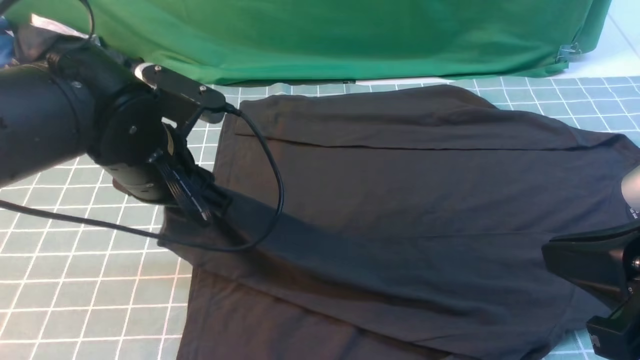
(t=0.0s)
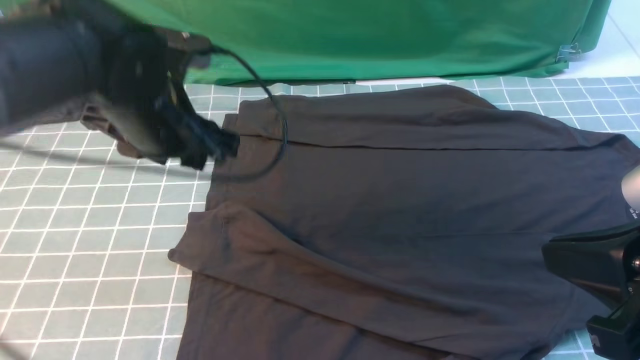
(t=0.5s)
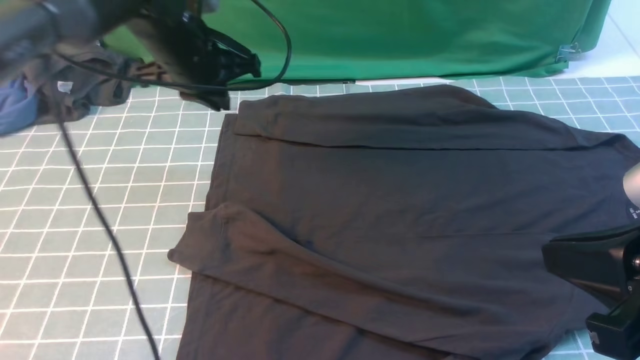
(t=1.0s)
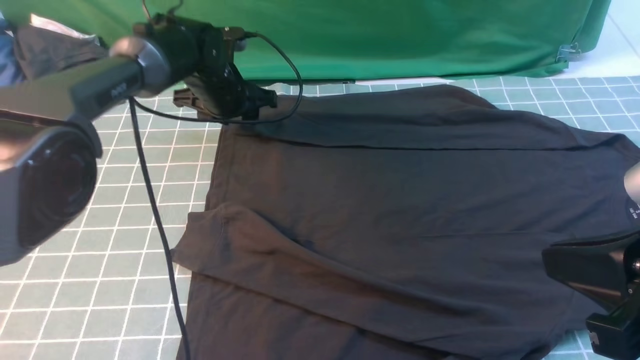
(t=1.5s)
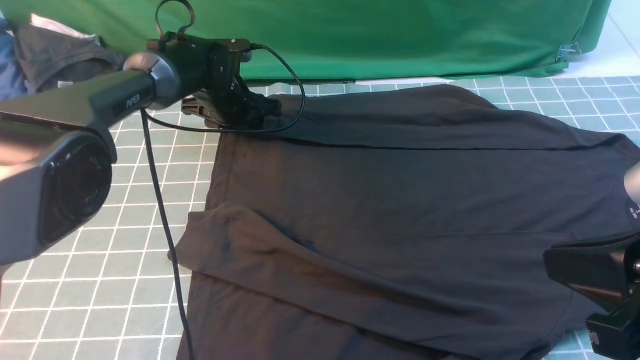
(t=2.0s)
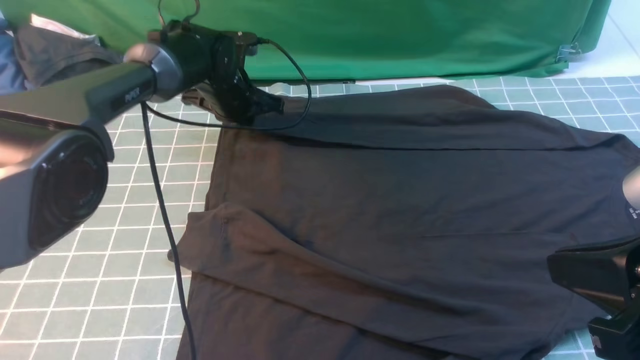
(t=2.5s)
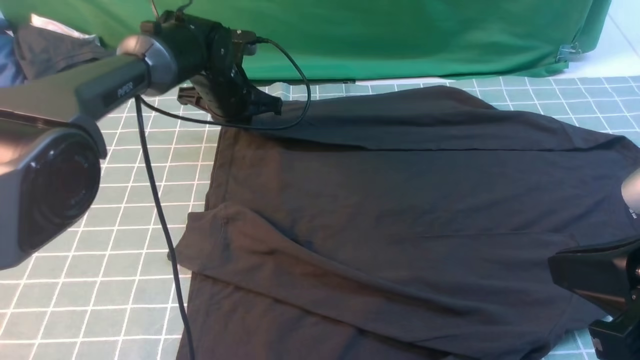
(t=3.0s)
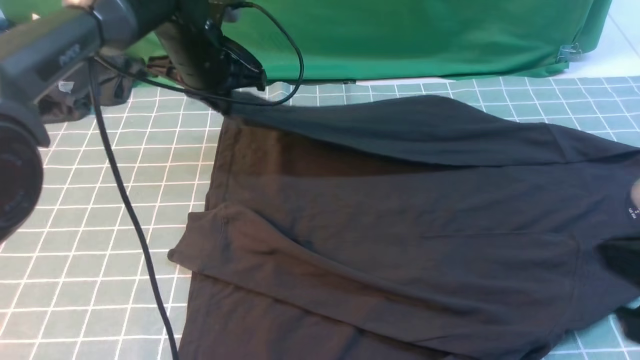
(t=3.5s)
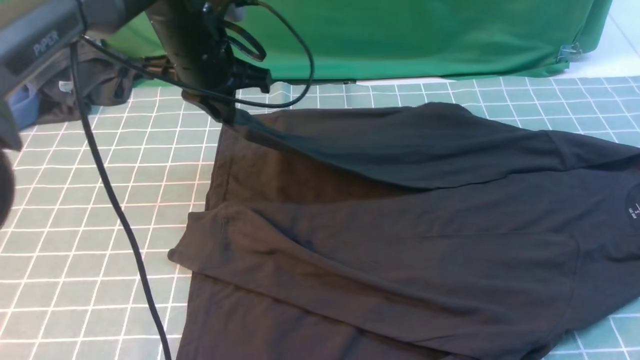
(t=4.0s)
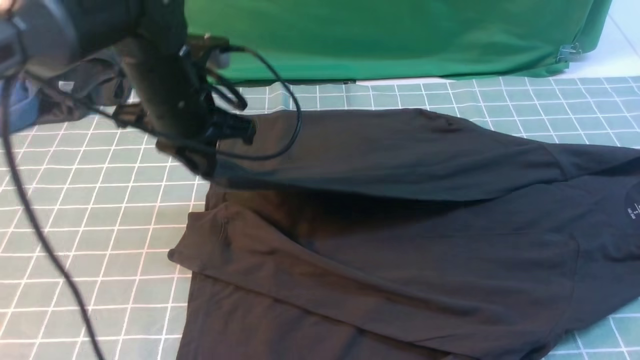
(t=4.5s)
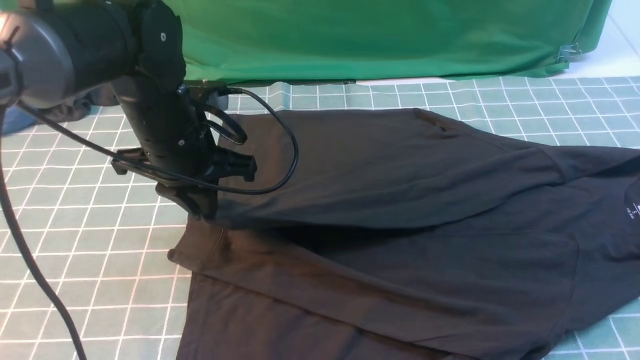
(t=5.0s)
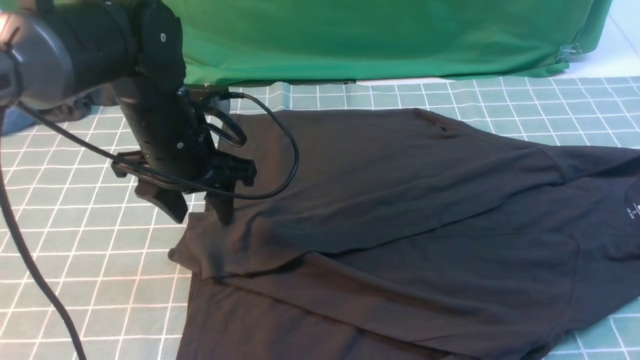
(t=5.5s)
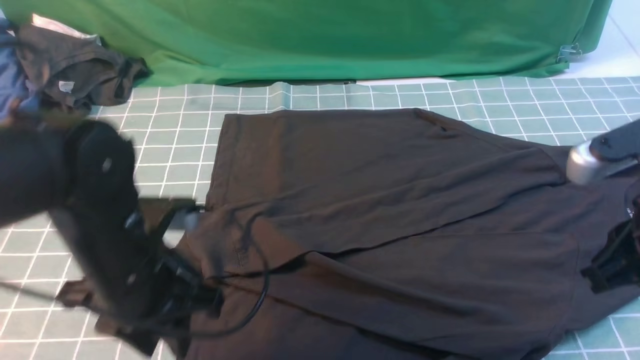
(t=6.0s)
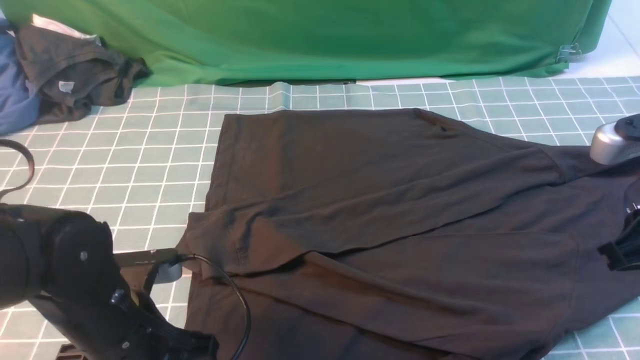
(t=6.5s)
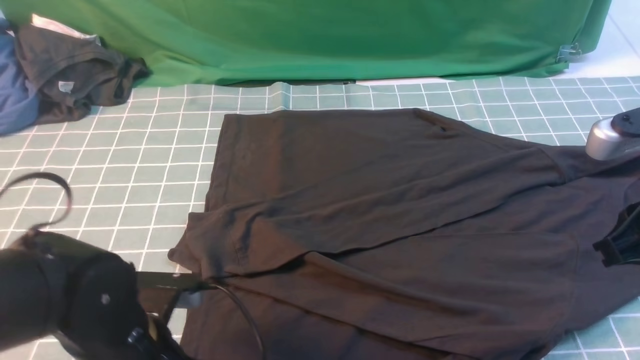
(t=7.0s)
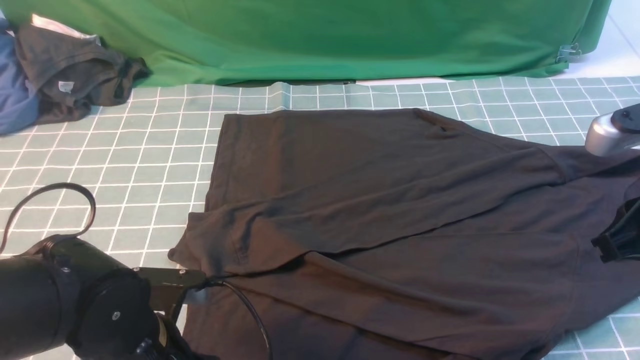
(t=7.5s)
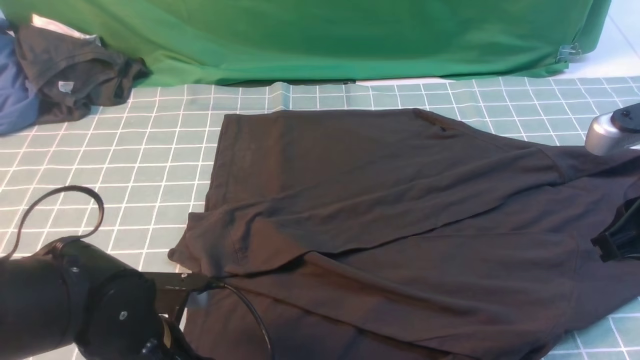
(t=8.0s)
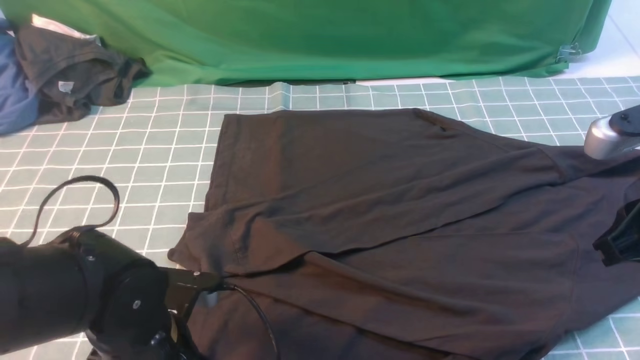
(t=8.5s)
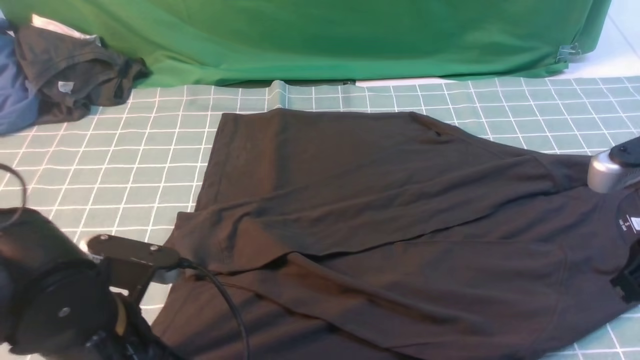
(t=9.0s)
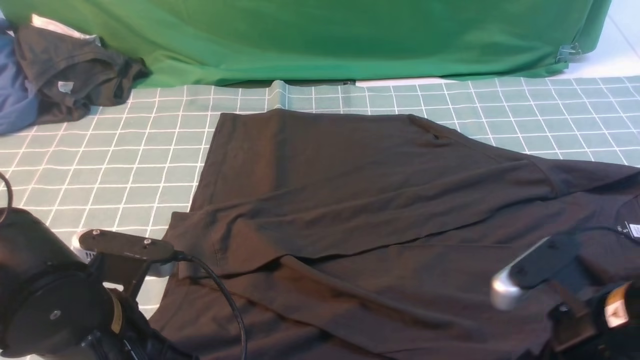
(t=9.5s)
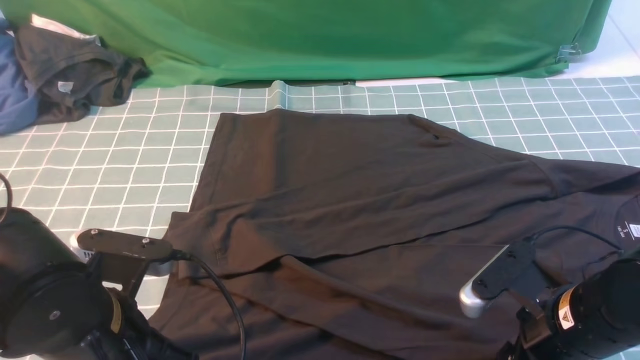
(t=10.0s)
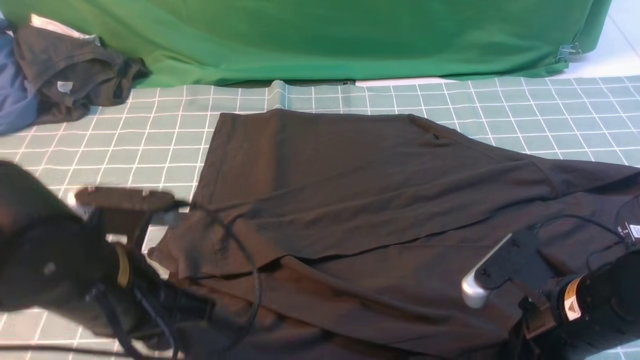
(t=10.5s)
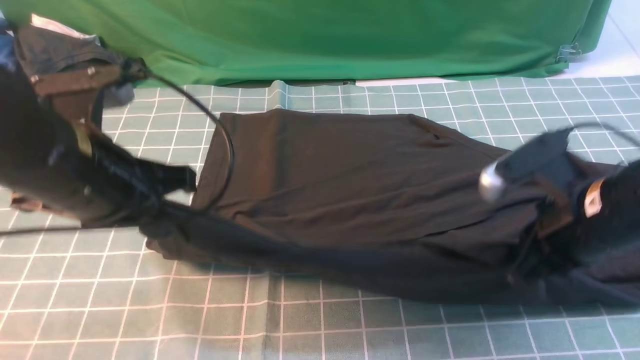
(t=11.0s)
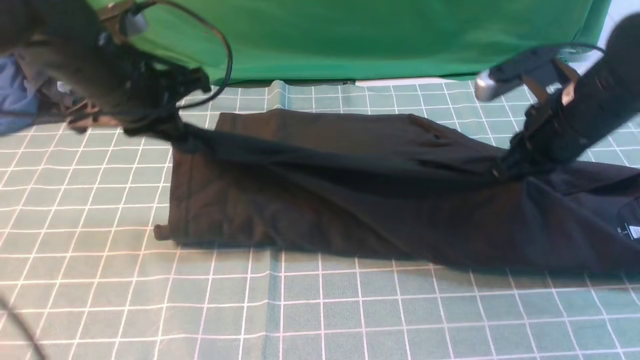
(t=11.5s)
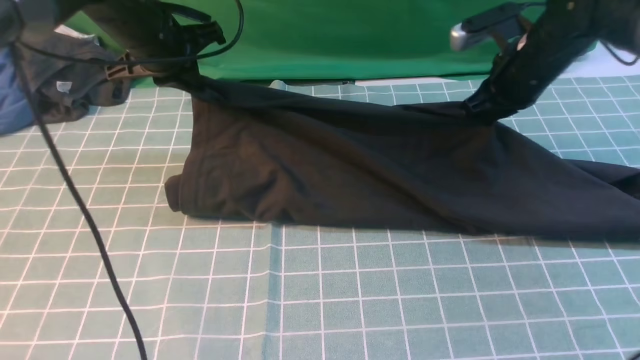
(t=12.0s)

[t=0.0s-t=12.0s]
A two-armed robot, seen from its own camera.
Step, t=1.0s to t=2.5s: use the left arm to clamp the cuff farthest from it.
Step, t=3.0s to t=5.5s: use the left arm to drag and drop the cuff onto the cuff closest to the left arm.
Step, t=6.0s to t=10.0s: use both arms simultaneously to clamp the lower edge of the clothing fabric.
t=0.0s to t=2.0s: The left gripper heads forward and downward, covering some 25 cm.
t=2.0s to t=4.0s: The right gripper travels to the right by some 5 cm, while the left gripper shifts some 15 cm upward and backward, and closes up.
t=4.0s to t=6.0s: The right gripper is displaced forward by some 5 cm. Meanwhile the left gripper travels backward by some 20 cm, and opens.
t=6.0s to t=8.0s: The left gripper goes roughly 10 cm backward and downward.
t=8.0s to t=10.0s: The right gripper moves downward and to the left, about 15 cm, and opens, while the left gripper moves upward, approximately 5 cm, and closes its fingers.
t=10.0s to t=12.0s: The two grippers go roughly 30 cm forward. The right gripper closes up.

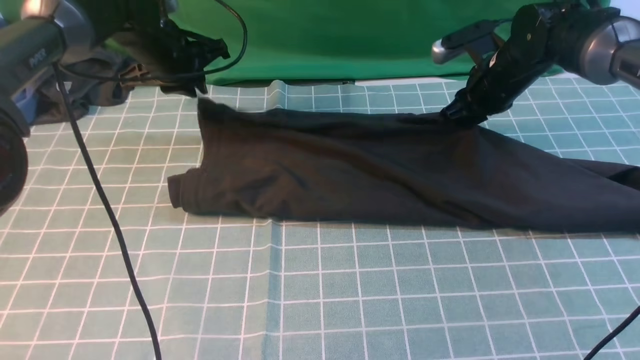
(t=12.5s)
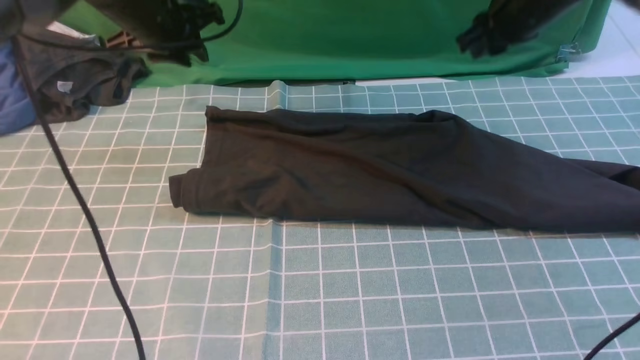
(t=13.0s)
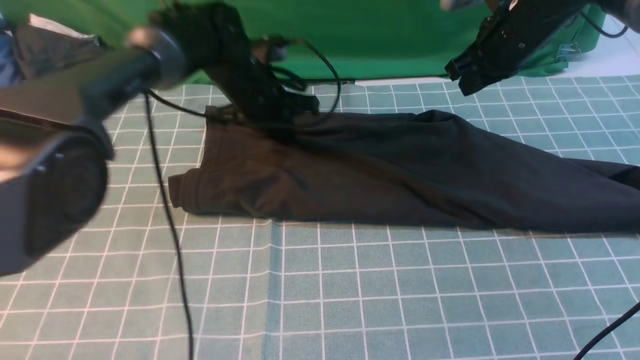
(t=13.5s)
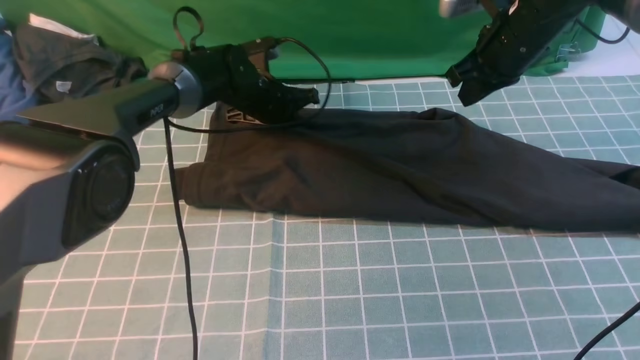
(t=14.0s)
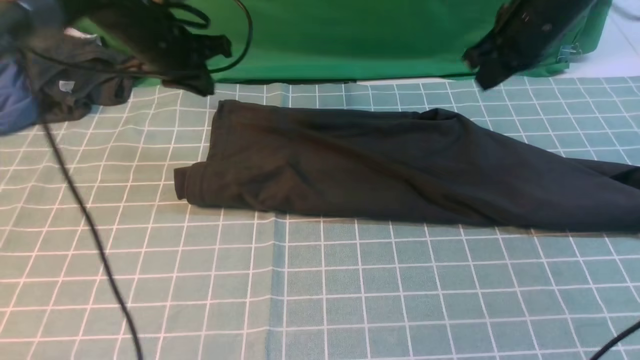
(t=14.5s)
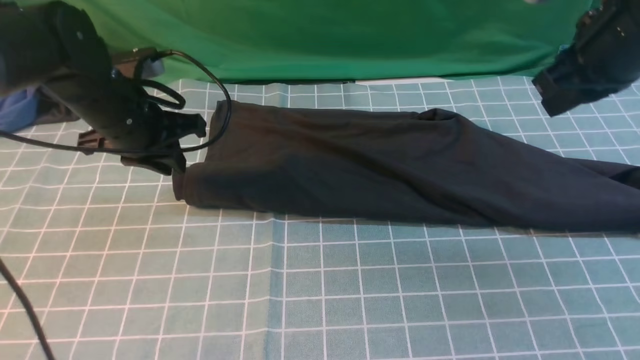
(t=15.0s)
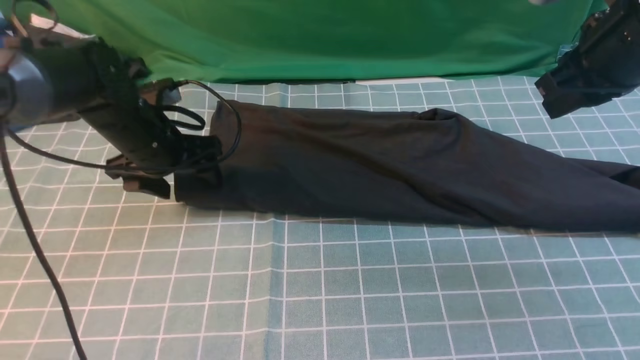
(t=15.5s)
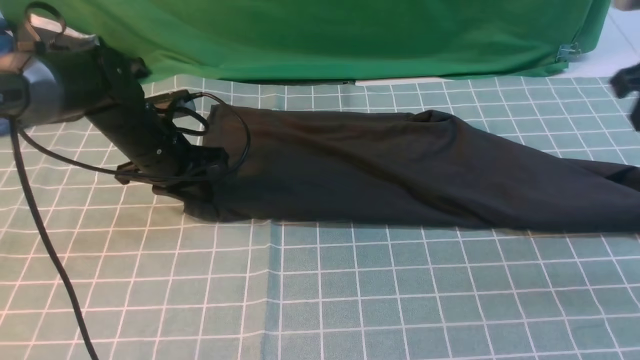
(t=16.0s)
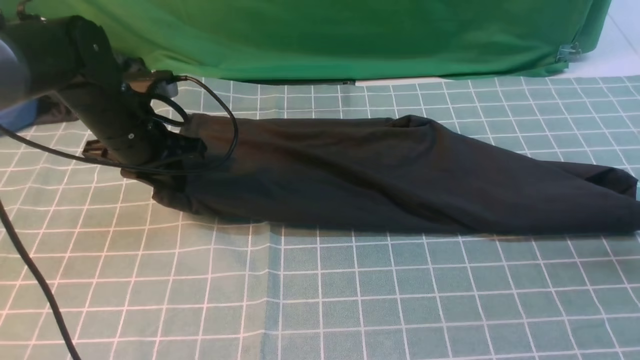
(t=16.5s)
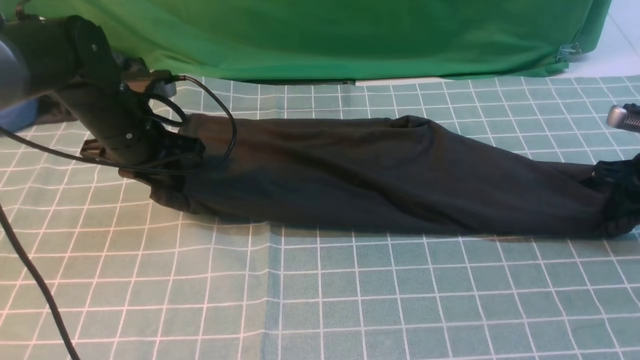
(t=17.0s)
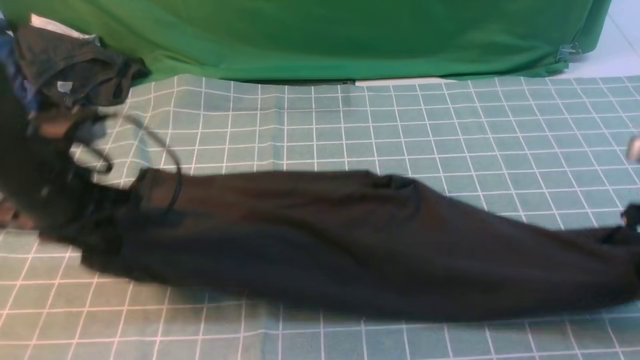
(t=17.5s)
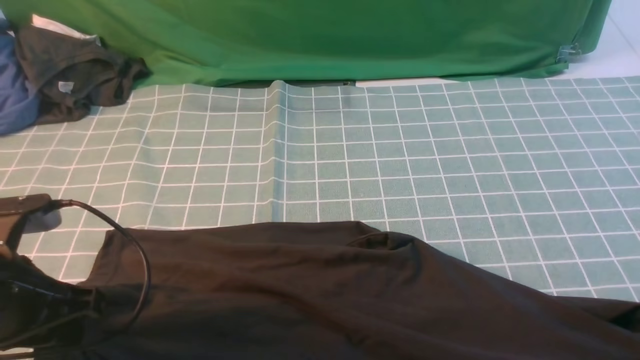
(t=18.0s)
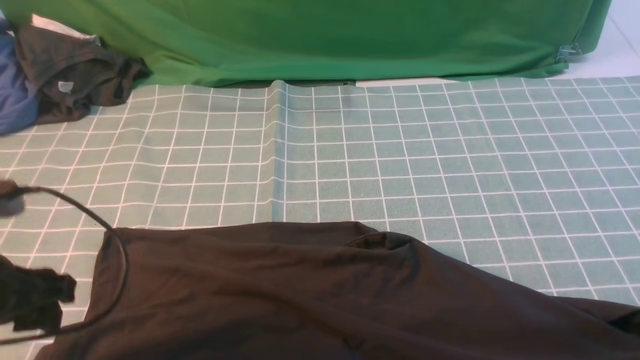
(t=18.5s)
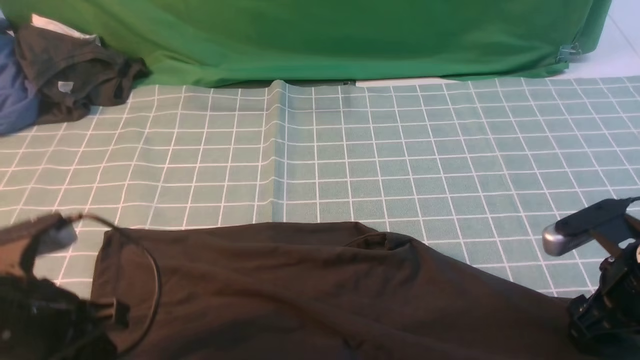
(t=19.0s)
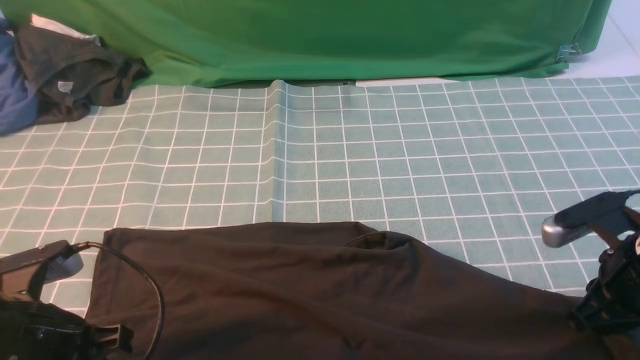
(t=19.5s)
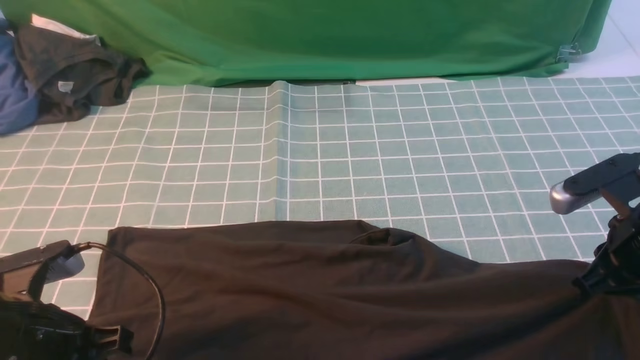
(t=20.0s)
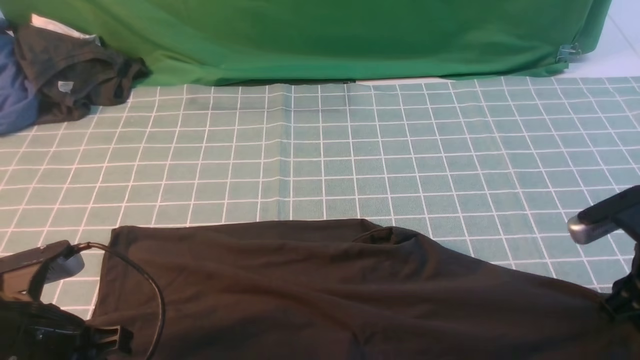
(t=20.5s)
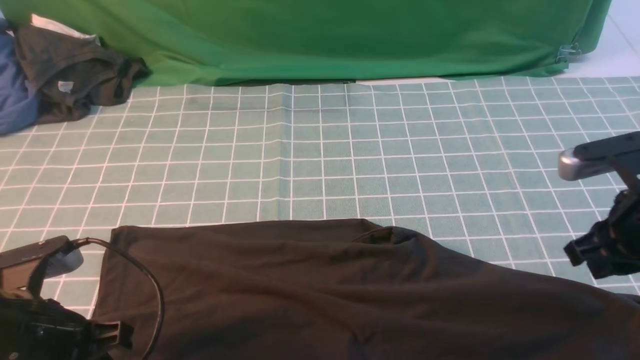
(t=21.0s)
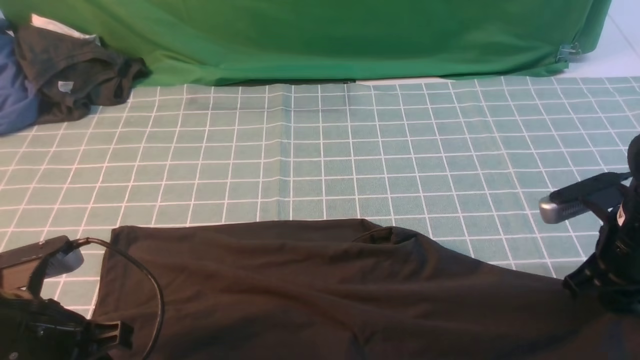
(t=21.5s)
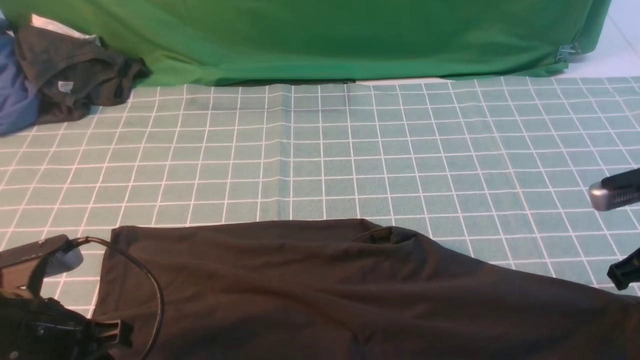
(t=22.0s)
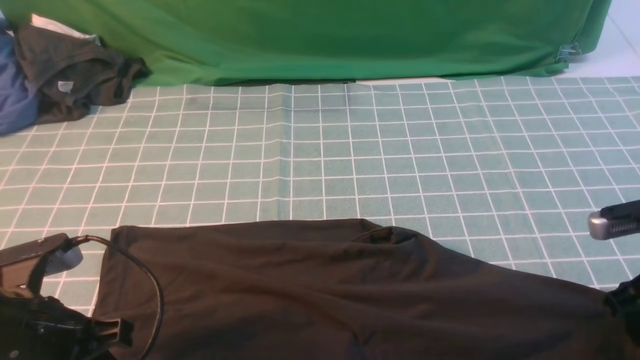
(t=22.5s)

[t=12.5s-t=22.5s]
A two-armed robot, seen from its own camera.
t=12.5s to t=14.5s: The left gripper goes up and down, some 10 cm each way, reversing 2 times, while the right gripper travels upward and backward by approximately 15 cm, and closes.
t=14.5s to t=16.5s: The right gripper moves to the right, downward and backward, some 20 cm, and opens up, while the left gripper moves backward, approximately 5 cm, and opens and closes again.
t=16.5s to t=18.5s: The left gripper moves backward, approximately 20 cm, and opens its fingers, while the right gripper moves backward and to the left, approximately 20 cm, and closes, then reopens.
t=18.5s to t=20.5s: The left gripper moves about 5 cm, and closes up. The right gripper ends up approximately 5 cm from where it was, and closes, then reopens.
t=20.5s to t=22.5s: The right gripper closes, then opens again.
